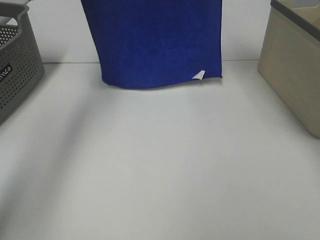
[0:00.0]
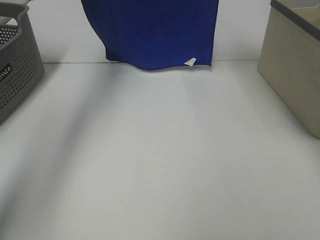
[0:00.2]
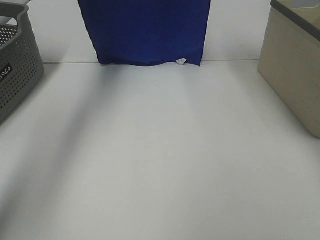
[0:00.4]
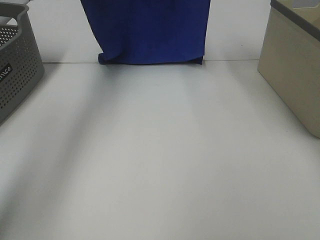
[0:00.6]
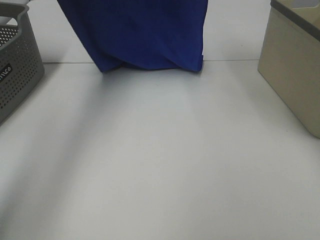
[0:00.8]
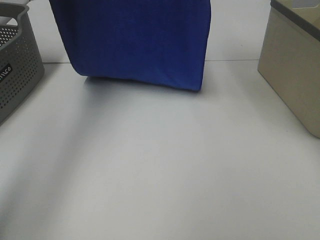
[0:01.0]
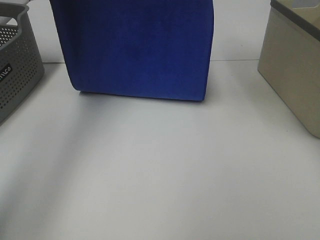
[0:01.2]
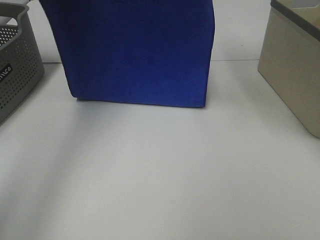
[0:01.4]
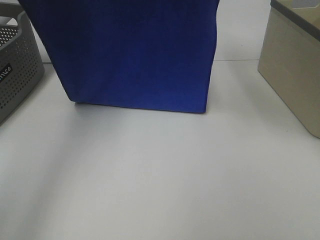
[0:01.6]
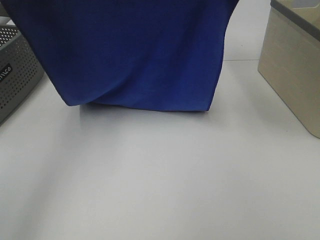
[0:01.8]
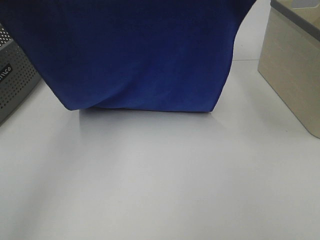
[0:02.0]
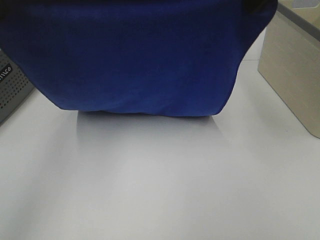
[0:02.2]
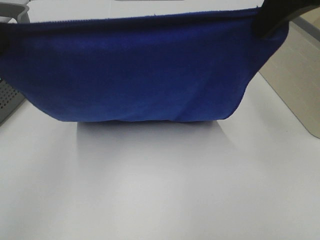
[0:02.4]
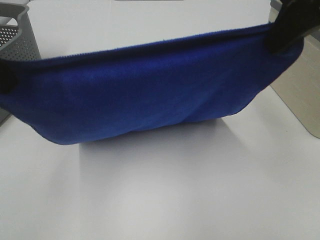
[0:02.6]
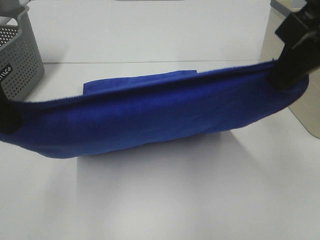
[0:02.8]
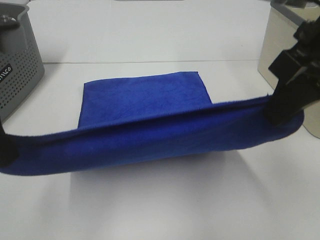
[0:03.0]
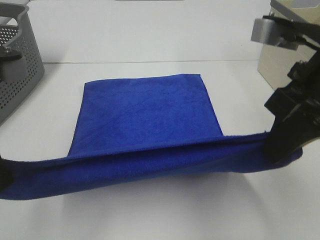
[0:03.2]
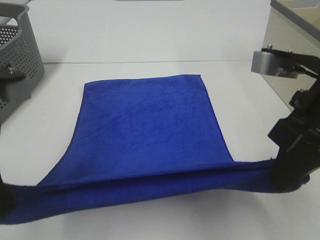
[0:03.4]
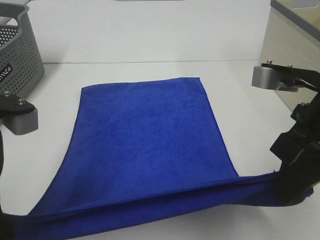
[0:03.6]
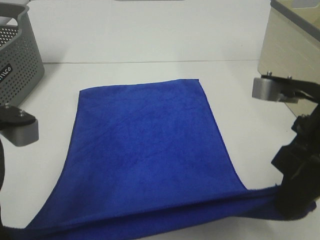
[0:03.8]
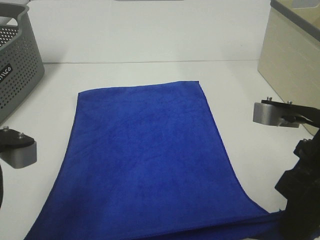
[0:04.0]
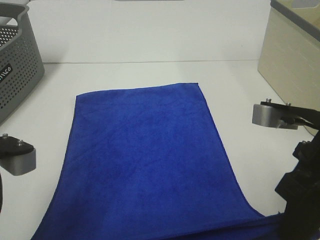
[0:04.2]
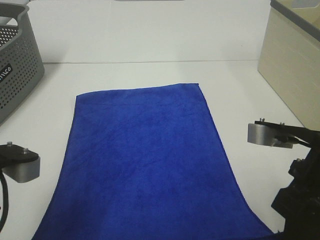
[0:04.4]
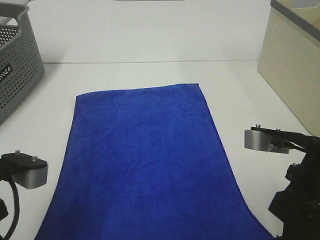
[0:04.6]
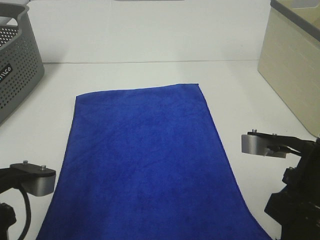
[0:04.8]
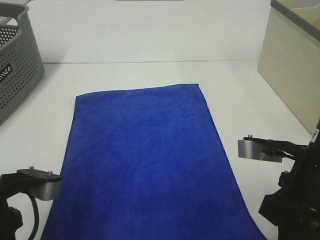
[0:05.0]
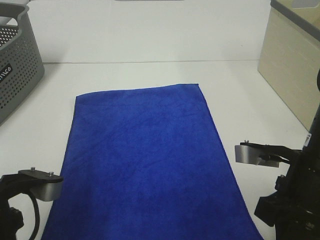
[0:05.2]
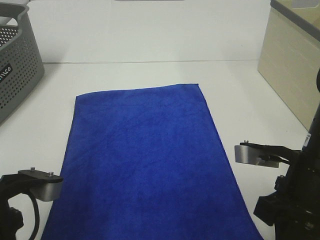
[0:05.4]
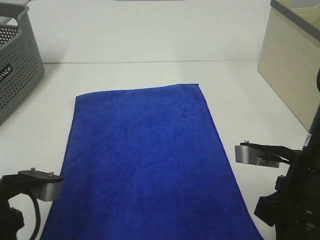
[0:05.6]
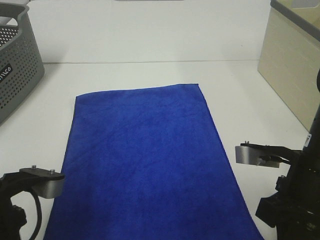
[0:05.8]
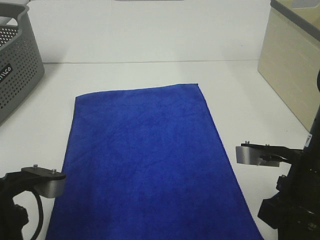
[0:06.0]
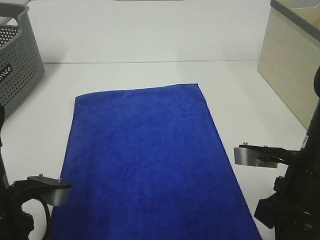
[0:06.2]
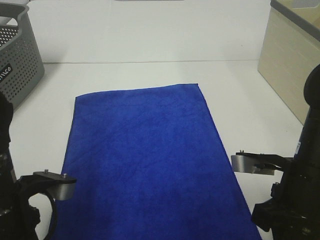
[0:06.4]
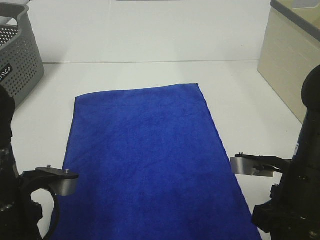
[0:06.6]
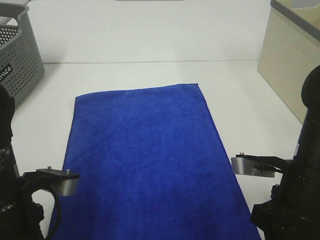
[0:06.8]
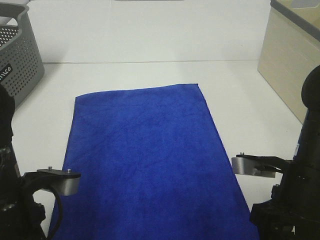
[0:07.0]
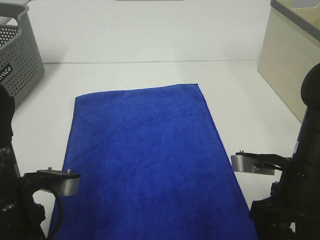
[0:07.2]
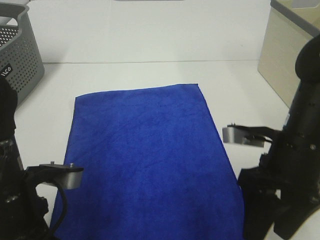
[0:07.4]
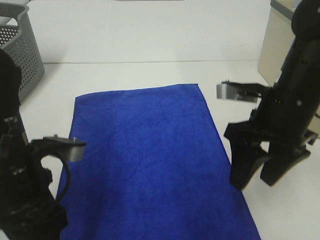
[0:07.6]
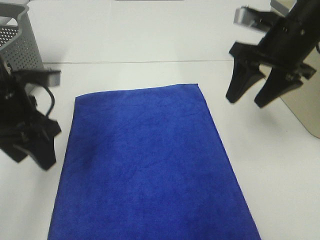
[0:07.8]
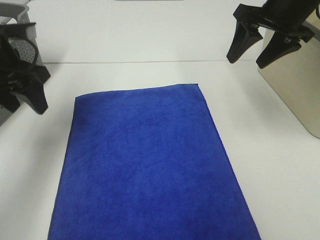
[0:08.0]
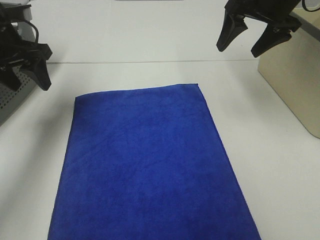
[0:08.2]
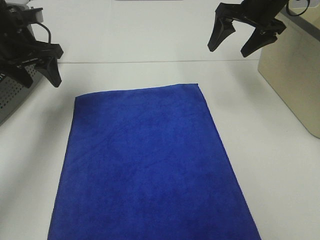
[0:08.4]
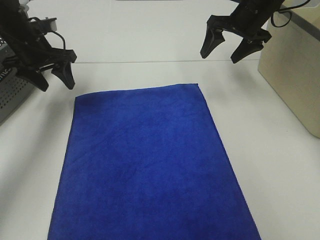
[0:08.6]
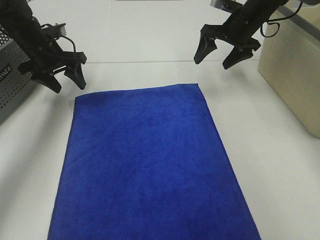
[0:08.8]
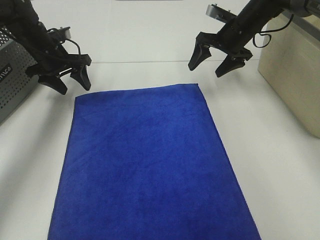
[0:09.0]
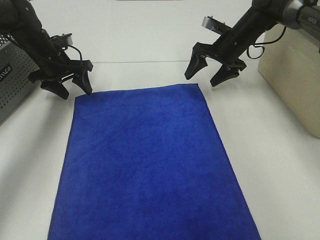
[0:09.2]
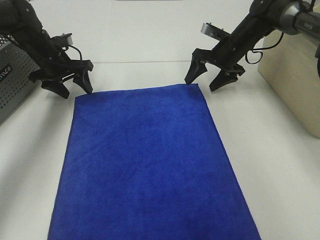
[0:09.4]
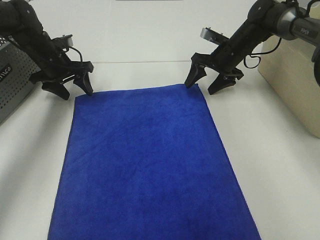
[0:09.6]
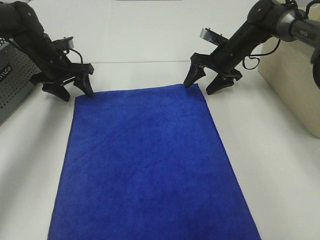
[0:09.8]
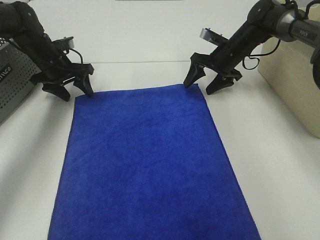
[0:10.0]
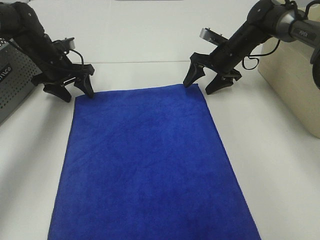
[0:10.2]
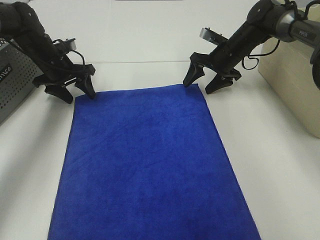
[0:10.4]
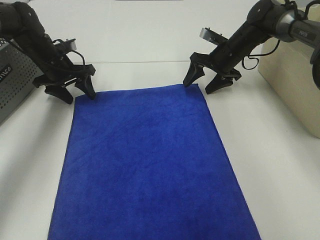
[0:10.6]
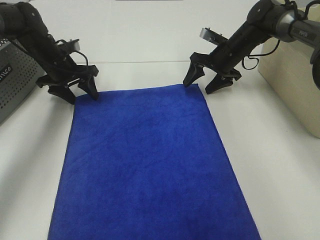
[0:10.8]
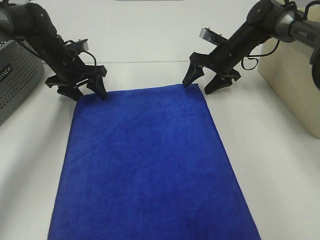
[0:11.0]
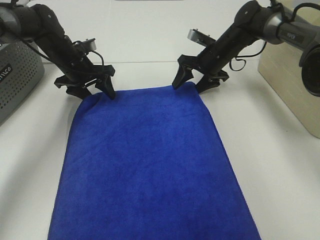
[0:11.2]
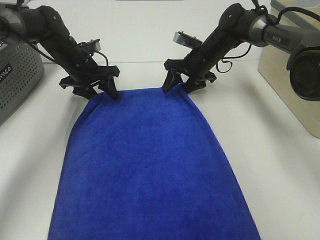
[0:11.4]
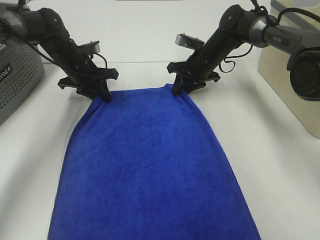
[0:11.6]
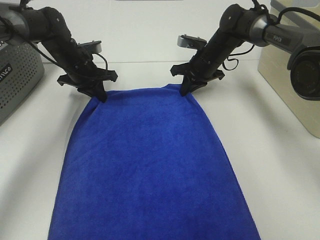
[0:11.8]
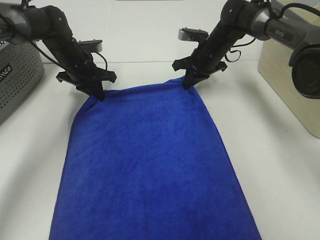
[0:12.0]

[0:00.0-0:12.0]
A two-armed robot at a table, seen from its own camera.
Task of the whole recording: Remove the towel and place it.
Step, 0:01.6 to 0:07.8: Left hand:adjust the blue towel.
Step, 0:01.6 to 0:07.8: Right hand:adjust the blue towel.
0:00.0 to 0:01.6: The left gripper goes some 15 cm backward and downward. The right gripper heads downward and backward, covering about 10 cm.
0:01.6 to 0:03.0: Both grippers move backward and downward, some 20 cm.
0:03.0 to 0:04.4: The grippers both shift downward and backward by roughly 10 cm.
0:04.4 to 0:06.0: There are only small adjustments of the grippers.
0:06.0 to 0:07.6: The right gripper heads forward, covering approximately 10 cm, and opens its fingers, while the left gripper shifts by approximately 5 cm, and opens up.
0:07.6 to 0:09.0: The two grippers go some 30 cm forward.
0:09.0 to 0:10.4: The right gripper travels downward by about 5 cm.
0:10.4 to 0:12.0: The right gripper closes up. The left gripper is displaced to the right by roughly 5 cm, and closes up.

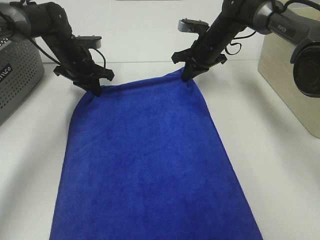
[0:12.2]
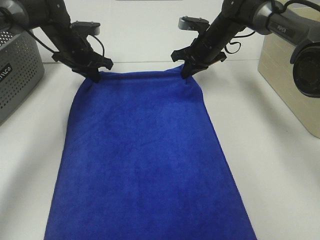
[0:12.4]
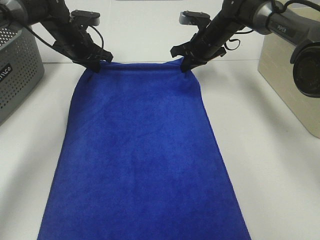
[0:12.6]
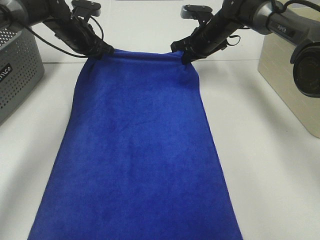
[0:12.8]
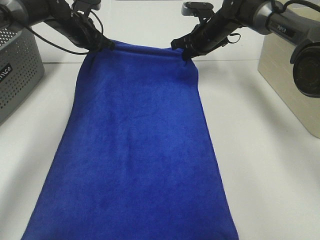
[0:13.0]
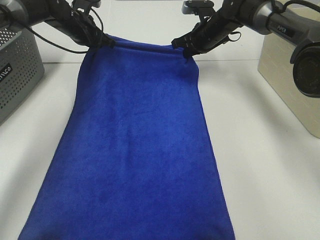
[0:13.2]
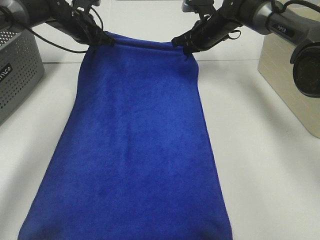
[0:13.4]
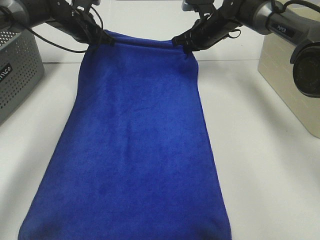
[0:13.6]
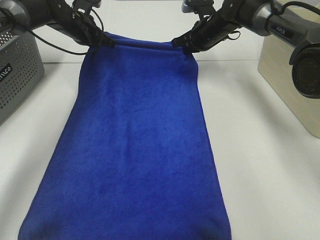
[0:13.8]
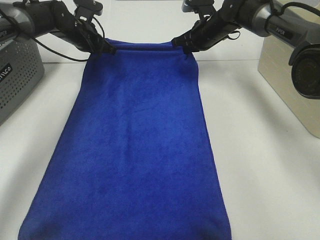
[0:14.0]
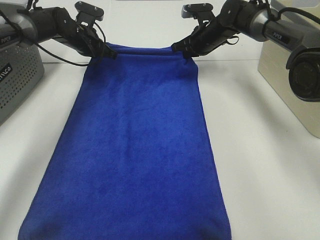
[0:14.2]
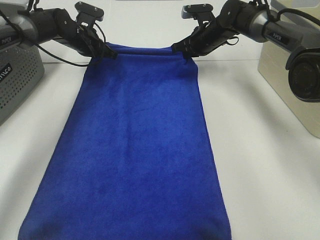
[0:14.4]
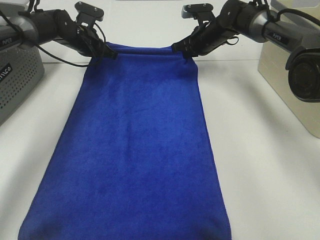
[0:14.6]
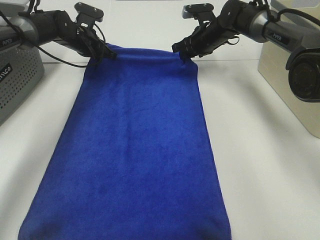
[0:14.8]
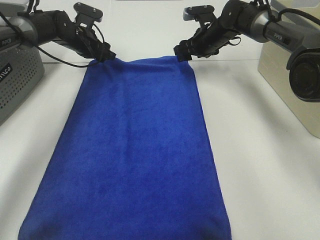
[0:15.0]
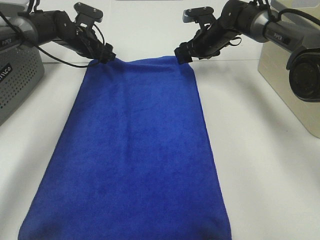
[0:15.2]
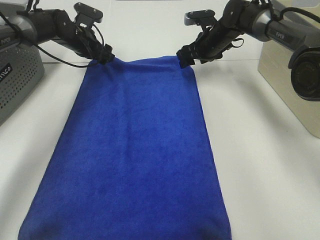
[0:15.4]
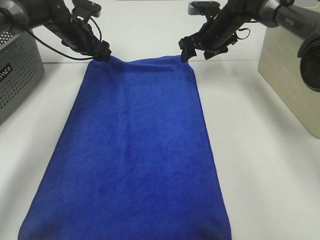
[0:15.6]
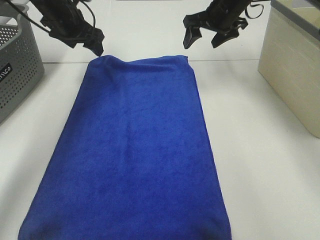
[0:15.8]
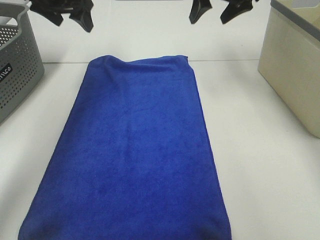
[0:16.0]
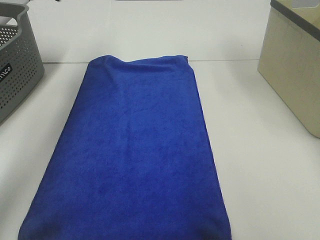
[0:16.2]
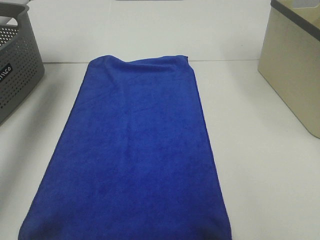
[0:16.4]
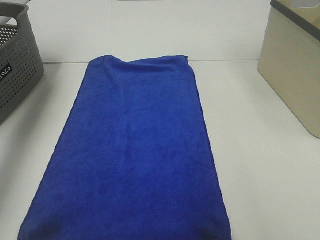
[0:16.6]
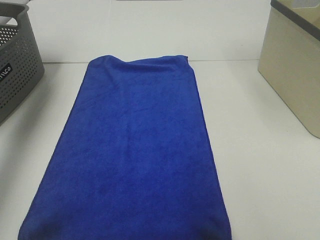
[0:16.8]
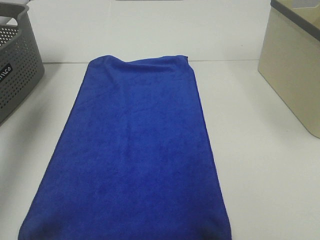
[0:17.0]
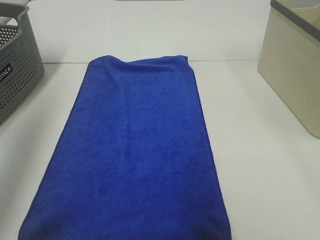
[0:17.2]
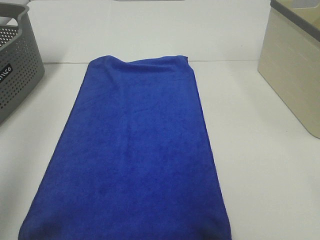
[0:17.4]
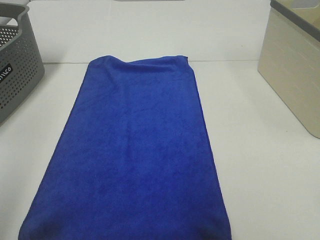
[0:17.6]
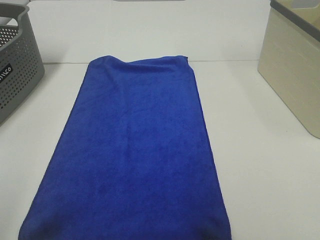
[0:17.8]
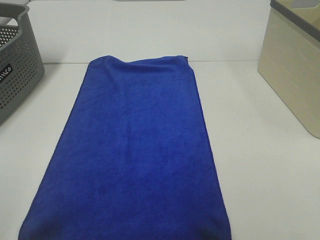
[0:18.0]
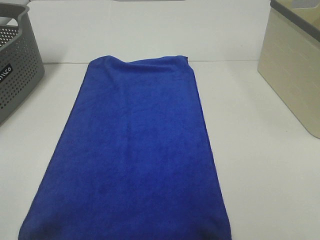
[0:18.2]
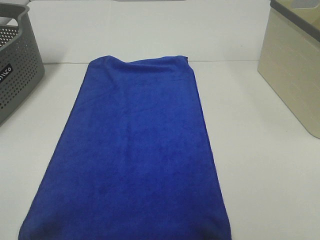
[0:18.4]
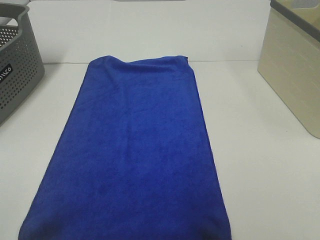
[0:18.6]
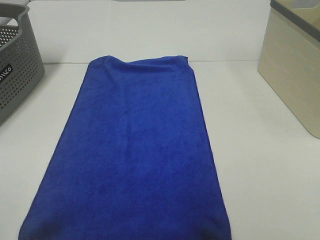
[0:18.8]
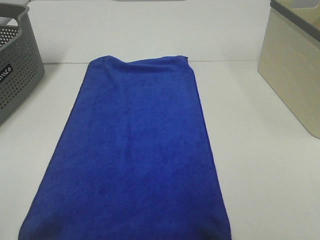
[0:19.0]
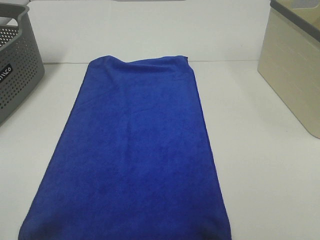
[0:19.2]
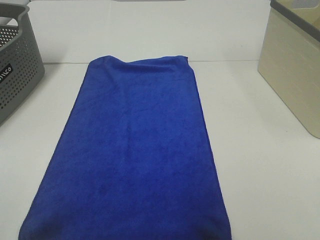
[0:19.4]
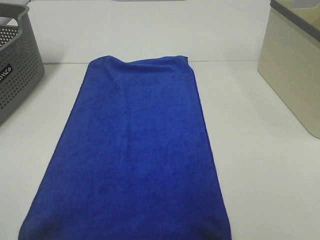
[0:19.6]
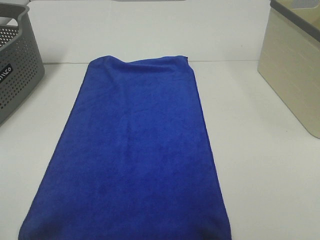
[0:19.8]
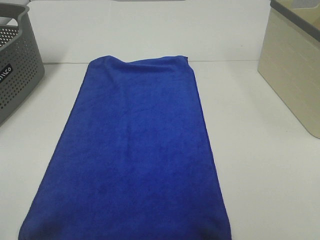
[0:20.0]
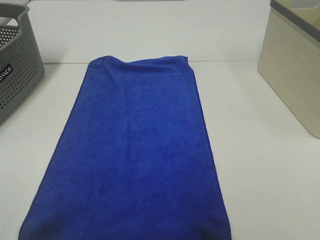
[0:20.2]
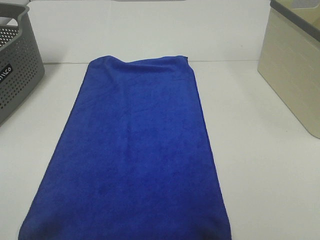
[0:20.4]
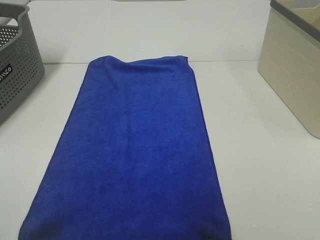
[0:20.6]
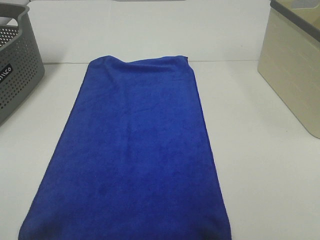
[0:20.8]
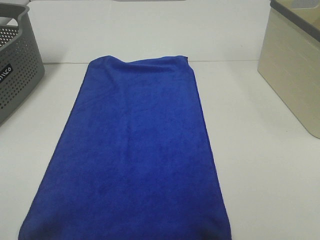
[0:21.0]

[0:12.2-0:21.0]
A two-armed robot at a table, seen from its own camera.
Task of the whole recording: Remove the towel and place it.
0:12.2 to 0:13.6: The left gripper shifts about 5 cm upward and forward.
0:13.6 to 0:15.2: The left gripper opens up; the right gripper opens.
0:15.2 to 0:16.6: The left gripper goes roughly 35 cm upward, to the left and backward; the right gripper travels upward and backward by some 30 cm.
0:16.6 to 0:18.0: The left gripper travels backward by roughly 40 cm.
0:19.6 to 0:21.0: Both grippers stay about where they are.

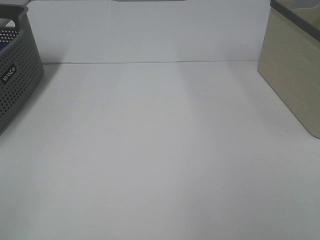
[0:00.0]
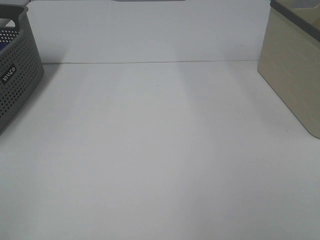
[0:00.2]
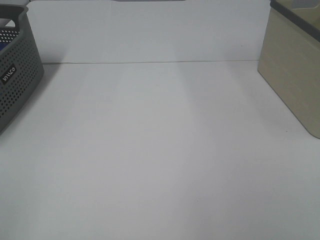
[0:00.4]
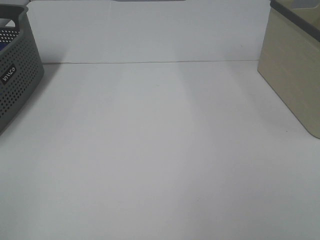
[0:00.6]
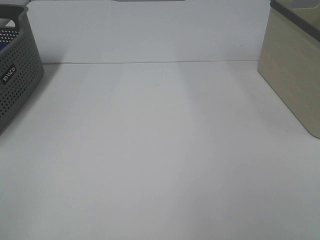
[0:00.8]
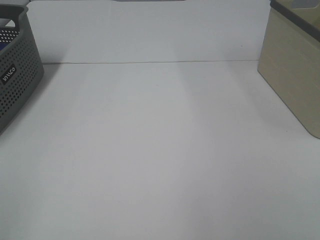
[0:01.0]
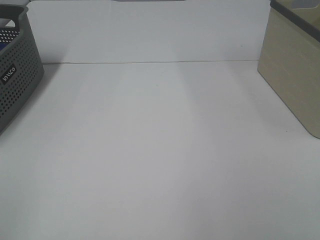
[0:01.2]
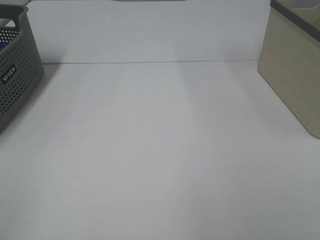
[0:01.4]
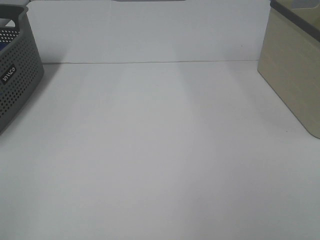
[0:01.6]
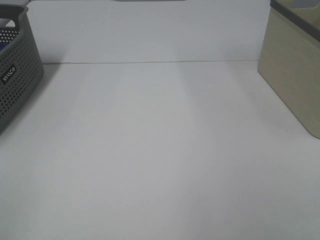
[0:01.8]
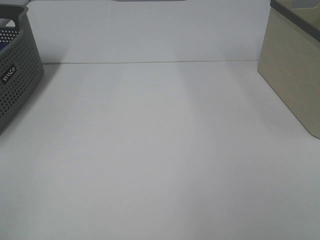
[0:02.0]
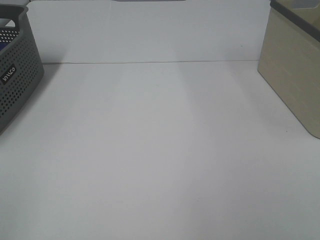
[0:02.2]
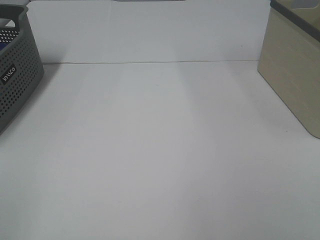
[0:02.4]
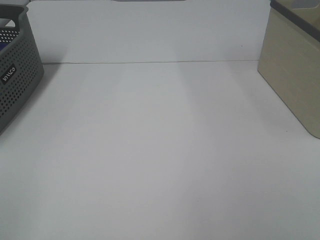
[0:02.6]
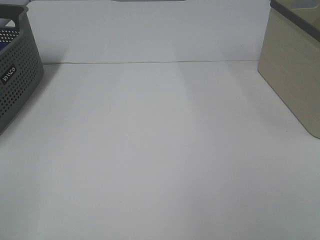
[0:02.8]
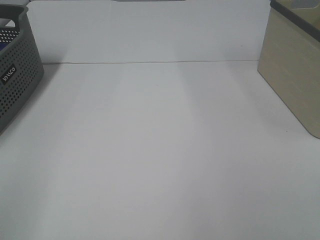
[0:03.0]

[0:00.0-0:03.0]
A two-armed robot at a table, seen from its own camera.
Task of the whole recording: Remove the towel and place it.
0:00.0 to 0:01.6: Neither gripper changes place.
